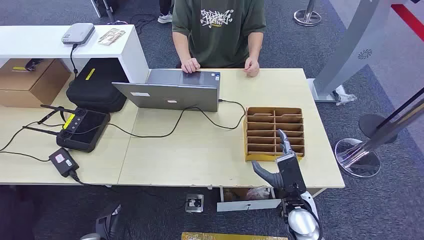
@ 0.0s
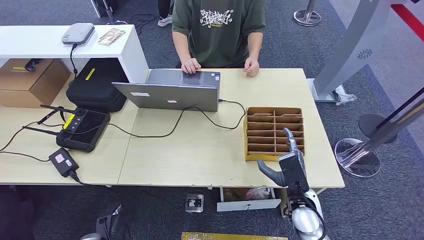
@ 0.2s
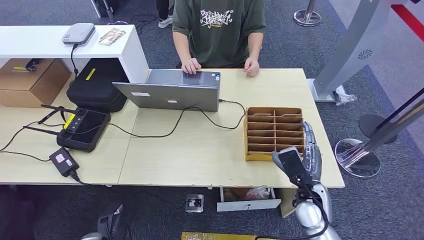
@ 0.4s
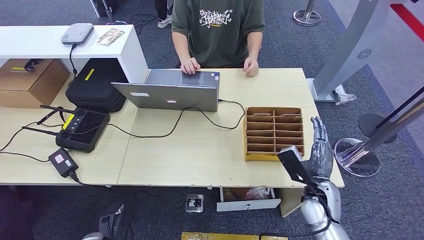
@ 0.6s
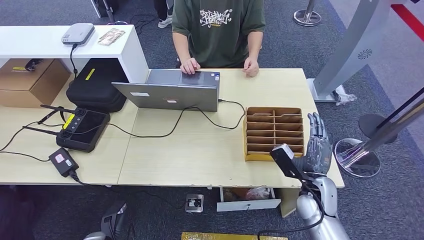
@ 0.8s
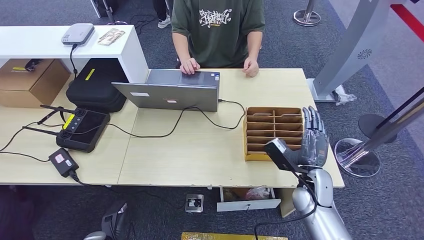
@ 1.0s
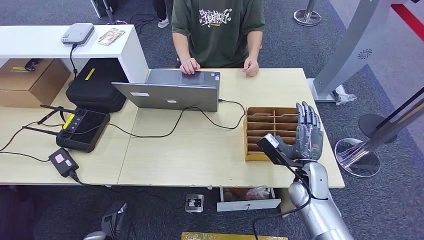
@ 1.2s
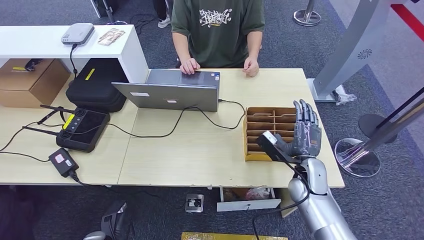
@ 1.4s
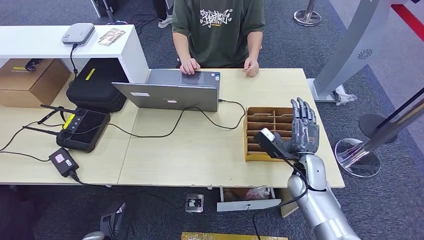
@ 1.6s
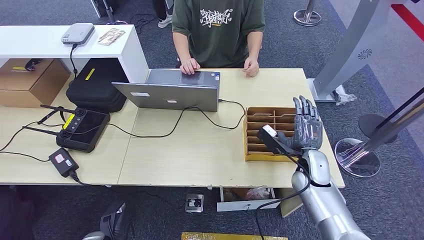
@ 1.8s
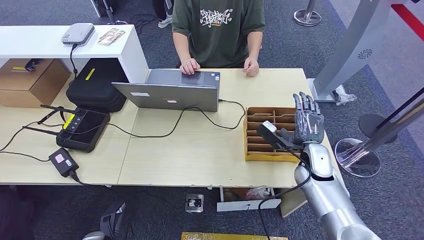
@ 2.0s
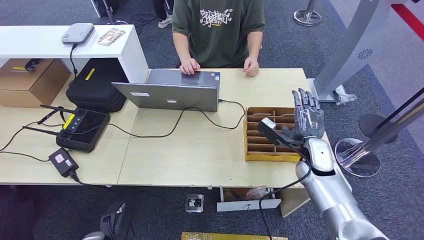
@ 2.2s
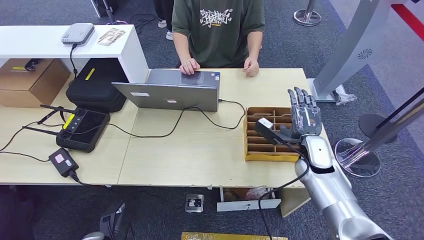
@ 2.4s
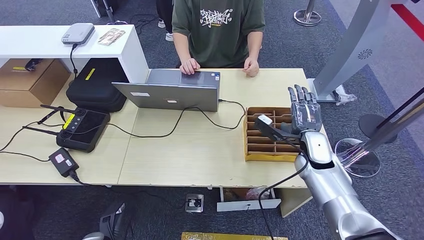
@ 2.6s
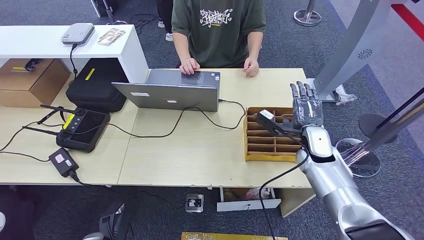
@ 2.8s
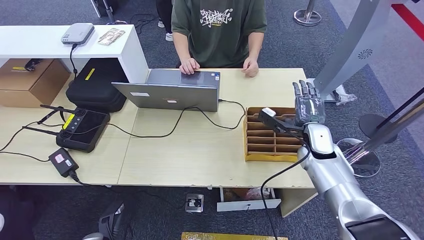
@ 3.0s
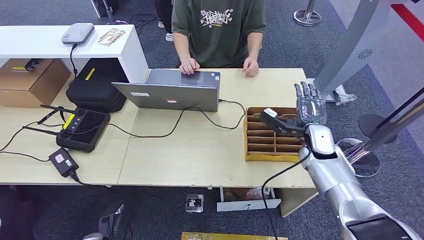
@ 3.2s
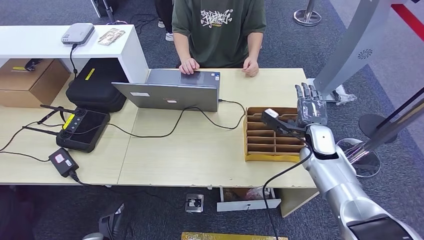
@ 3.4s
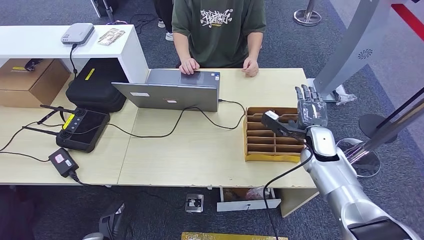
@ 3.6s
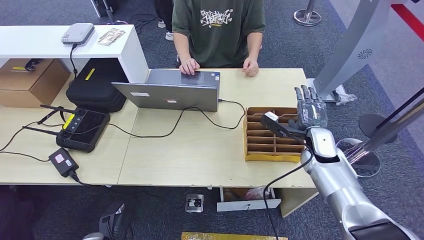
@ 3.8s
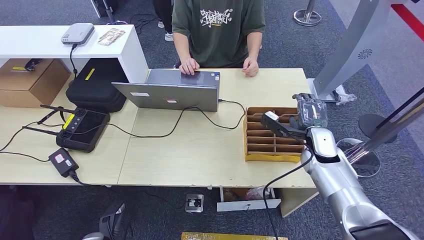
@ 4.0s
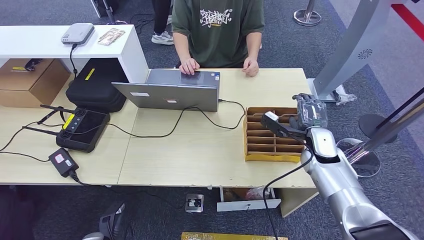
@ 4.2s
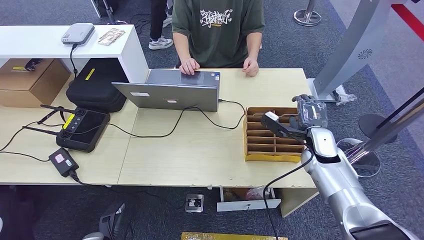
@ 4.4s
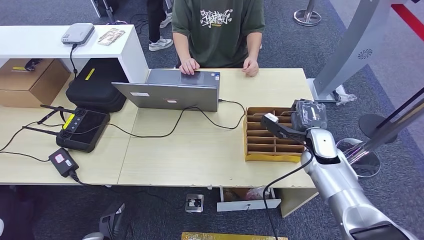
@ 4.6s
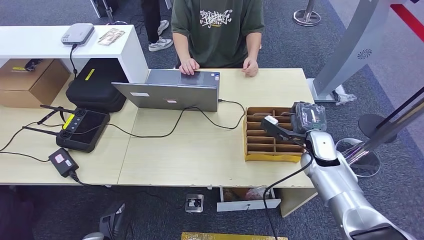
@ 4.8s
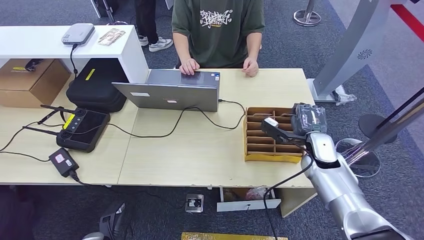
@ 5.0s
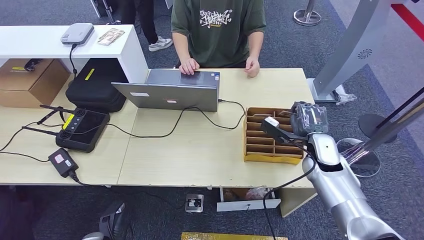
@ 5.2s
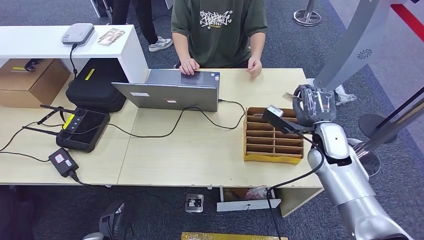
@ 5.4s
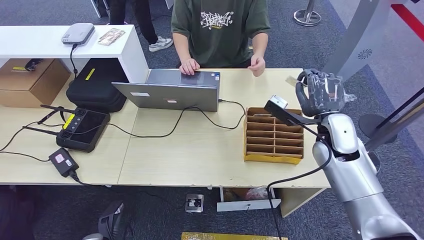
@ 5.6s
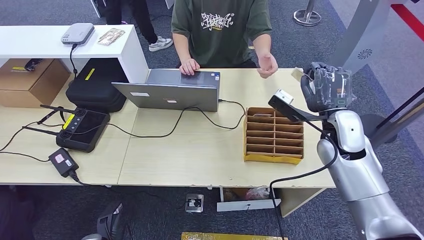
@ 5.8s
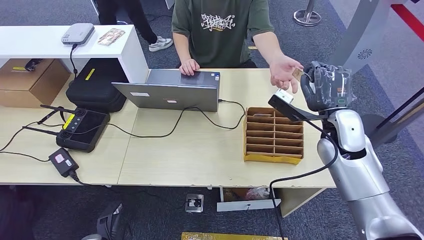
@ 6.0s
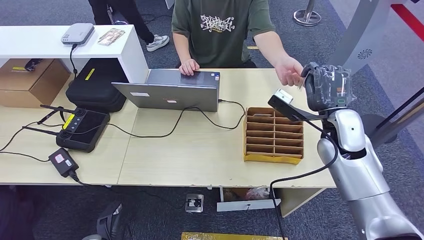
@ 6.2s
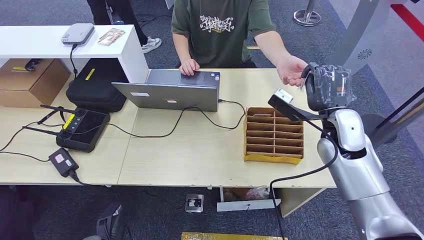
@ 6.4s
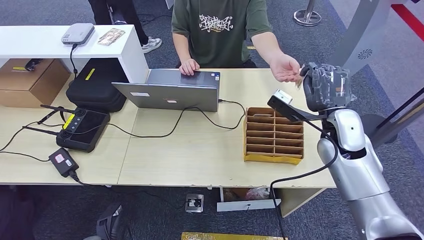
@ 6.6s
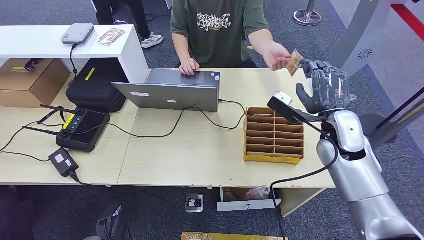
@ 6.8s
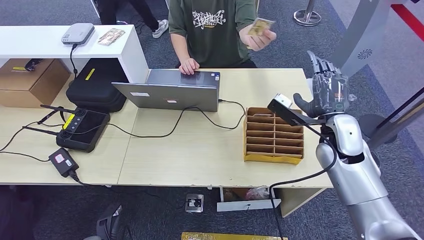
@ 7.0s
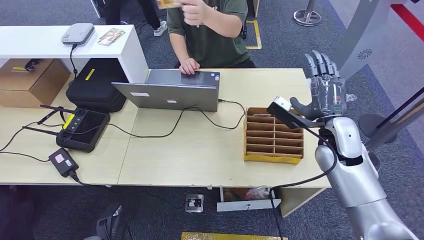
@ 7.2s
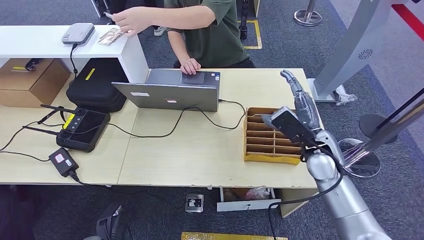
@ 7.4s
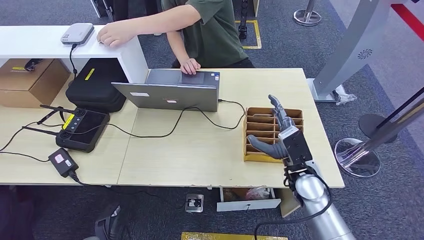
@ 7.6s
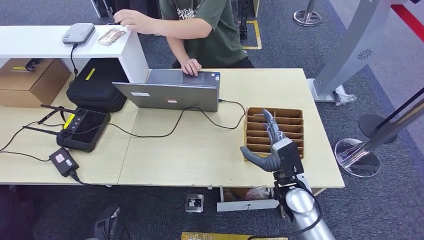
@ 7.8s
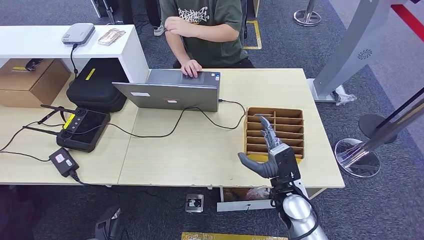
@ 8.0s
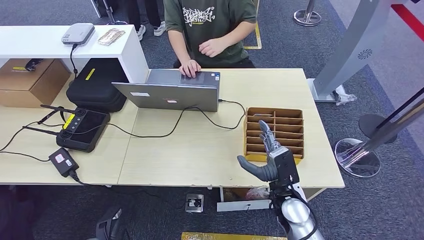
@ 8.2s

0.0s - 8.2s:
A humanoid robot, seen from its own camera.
Step, 0.0s - 5.8s: Pick up the room card from the card holder.
Step, 6.0s - 8.2s: Hand the room card to the target.
1.6s - 3.2s: The right hand moves forward and upward, roughly 10 cm.
3.2s - 5.0s: There are only small adjustments of the hands.
5.0s - 6.6s: The right hand heads upward, covering some 10 cm.
6.6s - 8.2s: The right hand travels downward, to the left and backward by about 20 cm.
